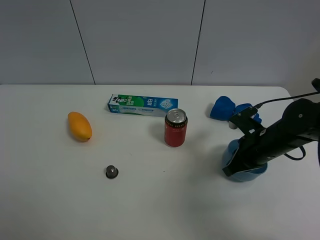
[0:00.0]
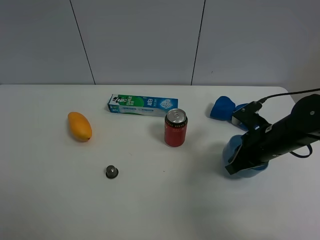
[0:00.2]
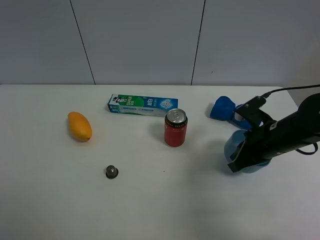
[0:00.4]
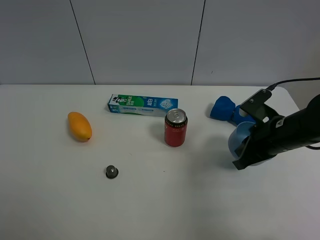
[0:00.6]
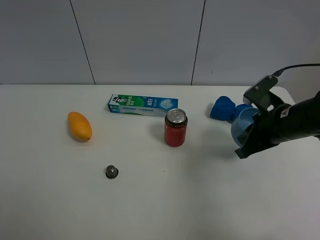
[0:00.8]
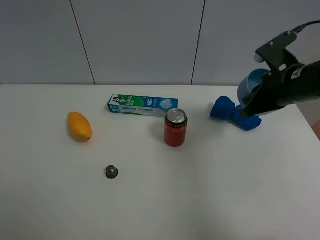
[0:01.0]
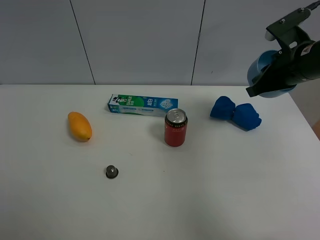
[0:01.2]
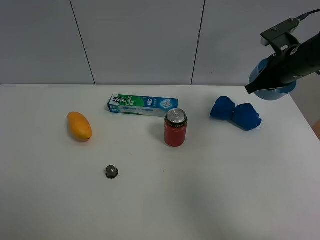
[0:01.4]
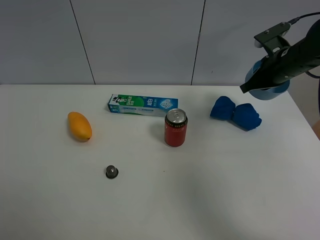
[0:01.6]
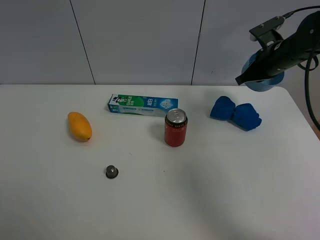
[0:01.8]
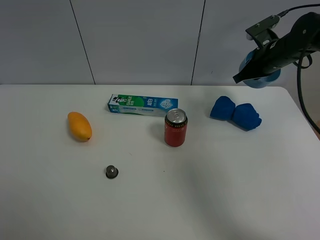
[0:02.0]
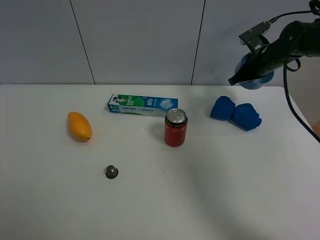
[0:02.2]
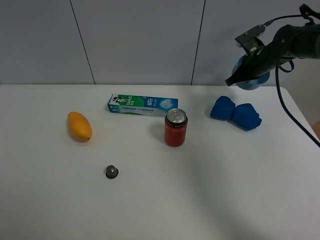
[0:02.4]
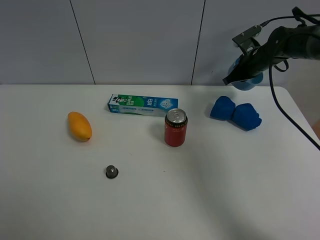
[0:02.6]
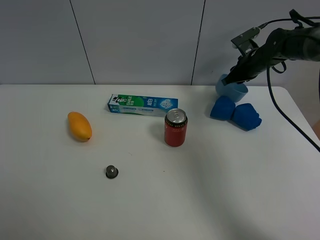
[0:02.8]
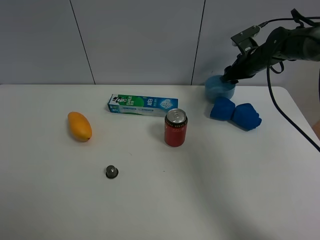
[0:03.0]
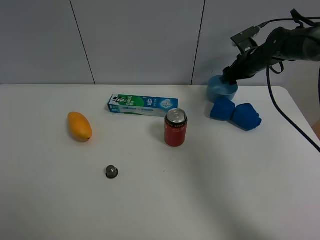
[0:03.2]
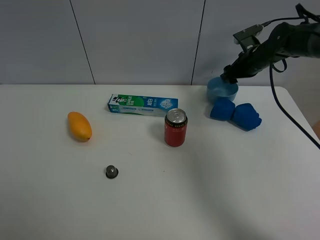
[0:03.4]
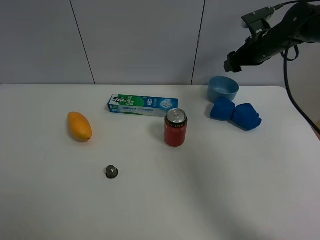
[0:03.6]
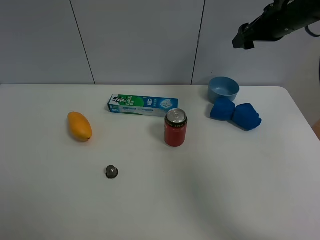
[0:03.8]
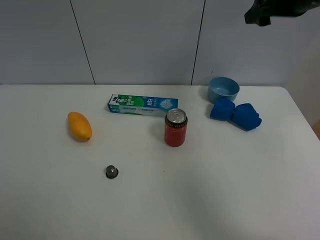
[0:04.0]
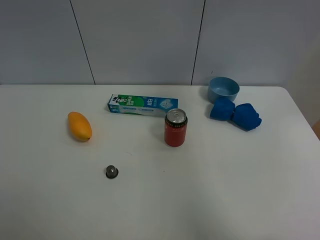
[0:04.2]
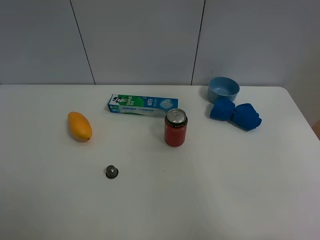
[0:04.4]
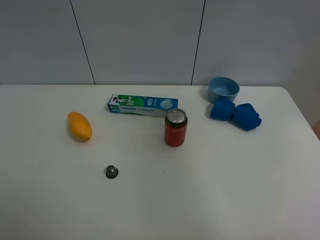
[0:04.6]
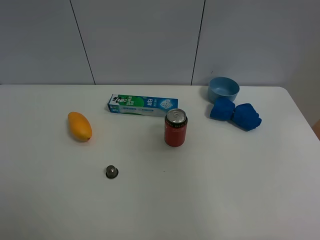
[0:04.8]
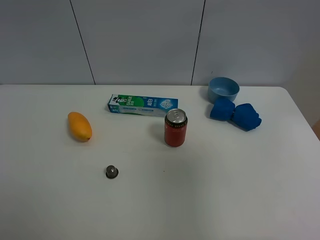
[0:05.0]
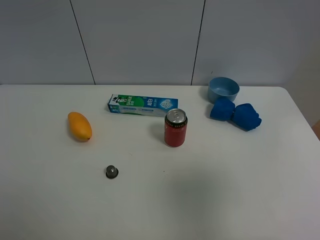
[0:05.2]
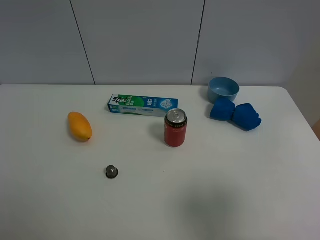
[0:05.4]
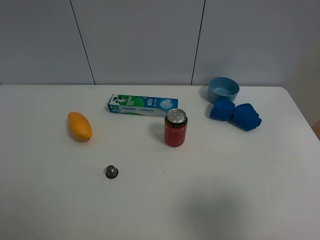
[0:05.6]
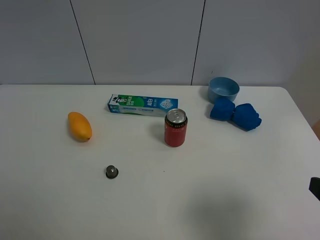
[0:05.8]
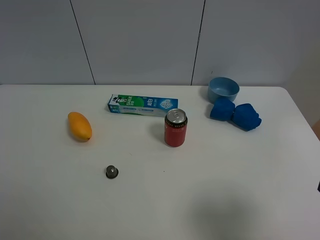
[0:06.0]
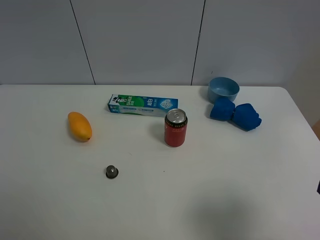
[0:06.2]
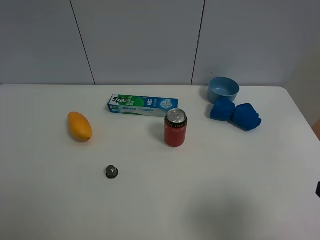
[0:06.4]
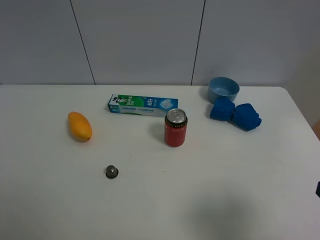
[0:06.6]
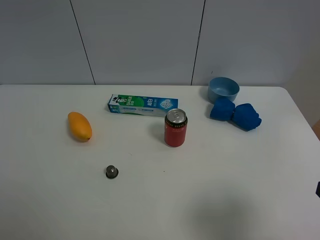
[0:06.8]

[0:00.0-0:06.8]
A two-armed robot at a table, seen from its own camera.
Task of the whole recording: the gripper move the object.
Step, 0:00.0 to 0:02.8: Place the blue bowl on the table with the right gripper.
0:00.0 to 0:01.4: The right gripper is displaced upward and forward by about 15 cm.
0:01.4 to 0:02.8: The right gripper is displaced forward and downward by about 15 cm, and opens its fingers.
0:02.8 to 0:04.0: The right gripper travels upward and backward by about 20 cm, and opens its fingers.
0:04.0 to 0:05.4: The right gripper travels backward by some 35 cm.

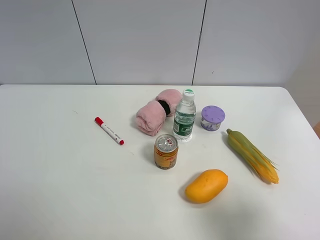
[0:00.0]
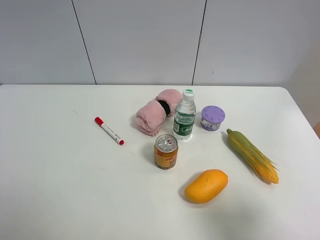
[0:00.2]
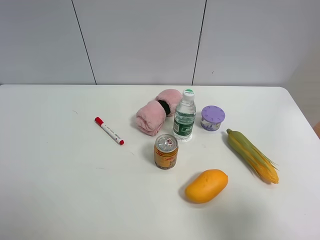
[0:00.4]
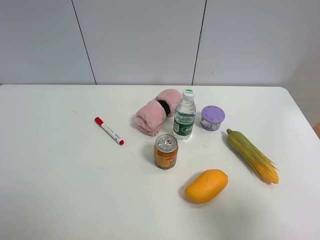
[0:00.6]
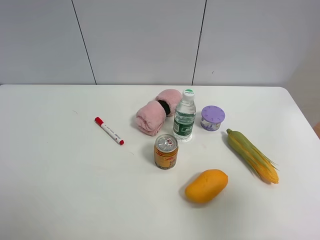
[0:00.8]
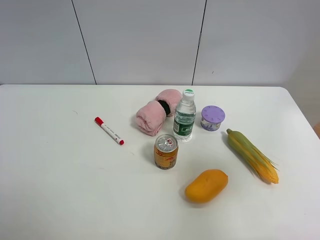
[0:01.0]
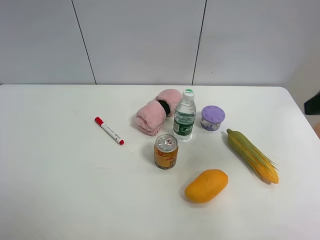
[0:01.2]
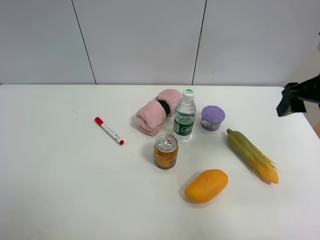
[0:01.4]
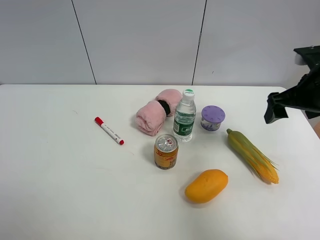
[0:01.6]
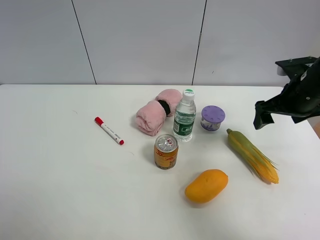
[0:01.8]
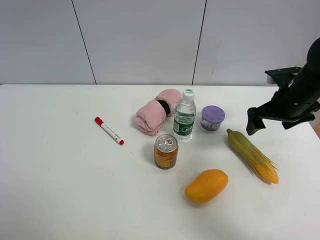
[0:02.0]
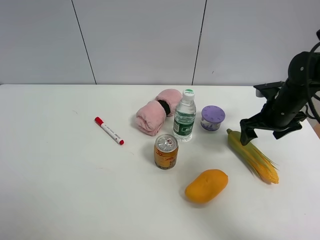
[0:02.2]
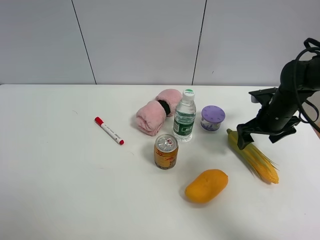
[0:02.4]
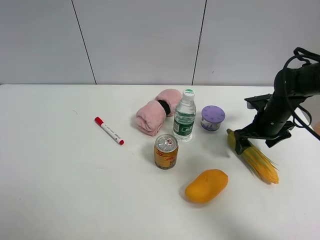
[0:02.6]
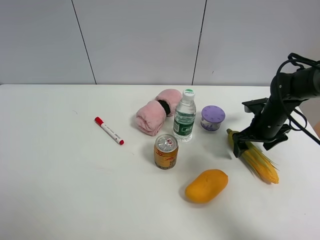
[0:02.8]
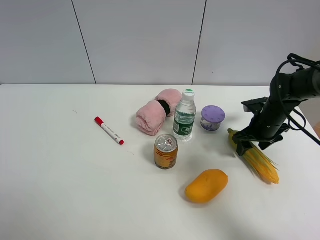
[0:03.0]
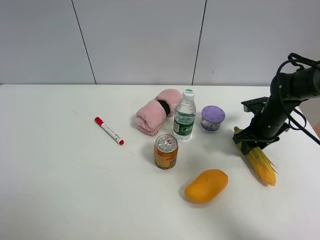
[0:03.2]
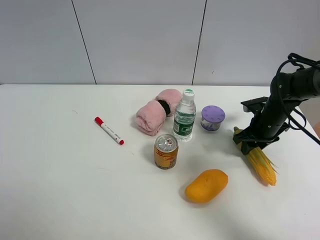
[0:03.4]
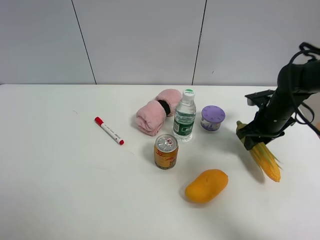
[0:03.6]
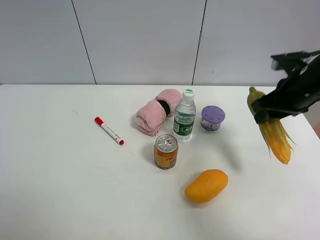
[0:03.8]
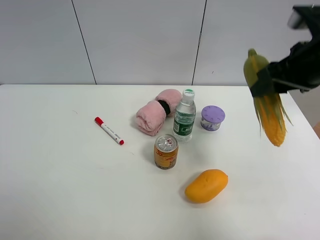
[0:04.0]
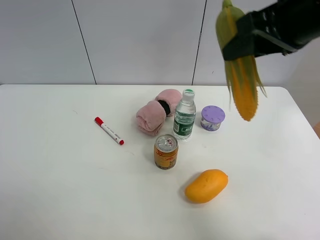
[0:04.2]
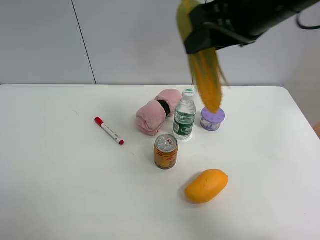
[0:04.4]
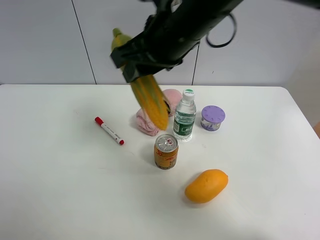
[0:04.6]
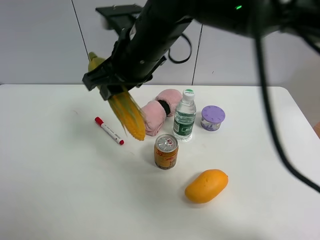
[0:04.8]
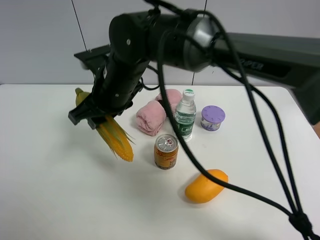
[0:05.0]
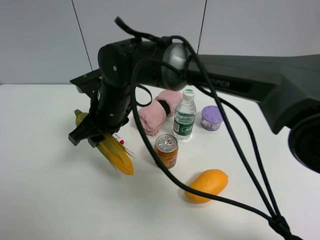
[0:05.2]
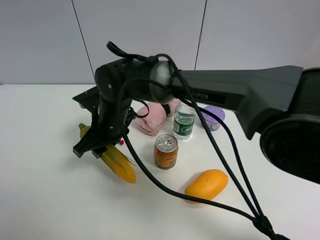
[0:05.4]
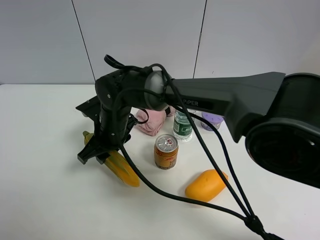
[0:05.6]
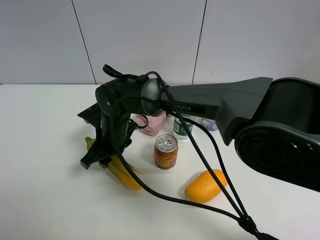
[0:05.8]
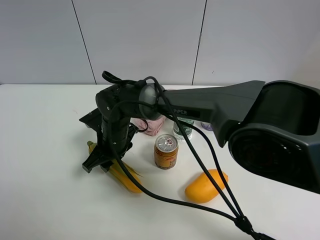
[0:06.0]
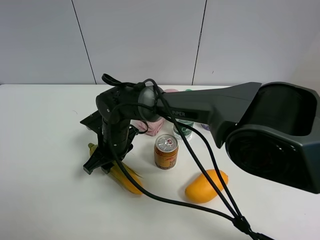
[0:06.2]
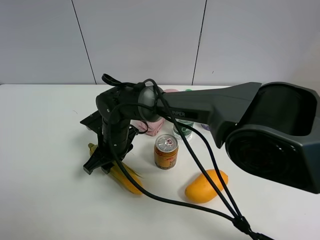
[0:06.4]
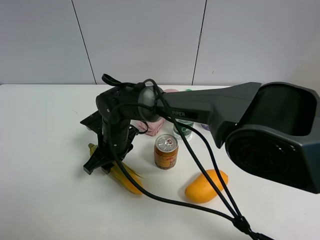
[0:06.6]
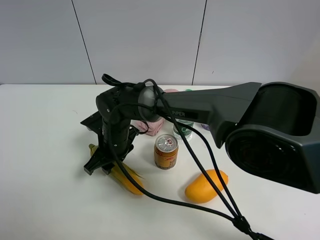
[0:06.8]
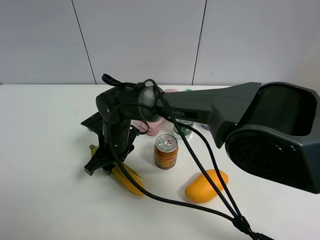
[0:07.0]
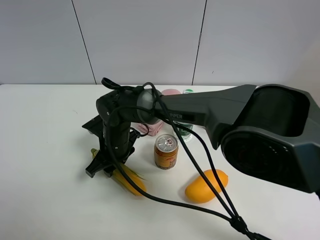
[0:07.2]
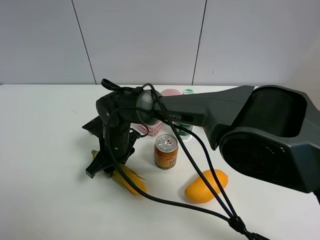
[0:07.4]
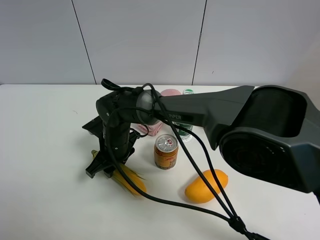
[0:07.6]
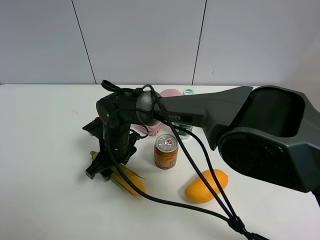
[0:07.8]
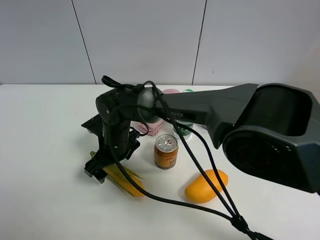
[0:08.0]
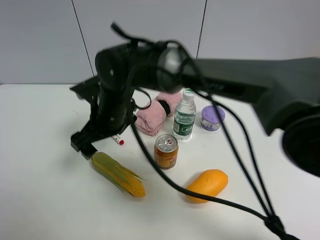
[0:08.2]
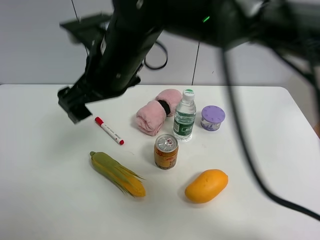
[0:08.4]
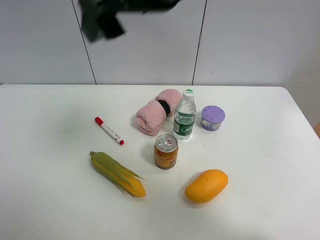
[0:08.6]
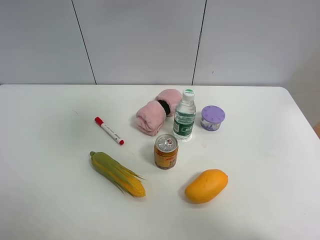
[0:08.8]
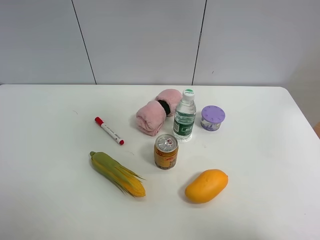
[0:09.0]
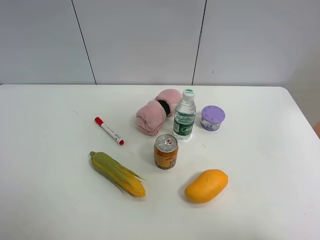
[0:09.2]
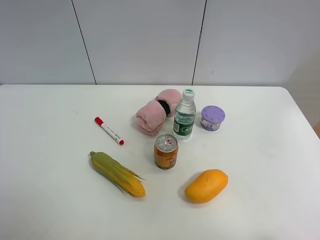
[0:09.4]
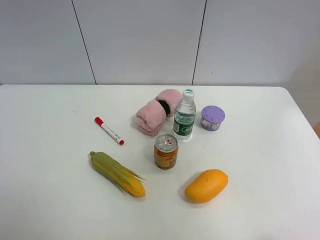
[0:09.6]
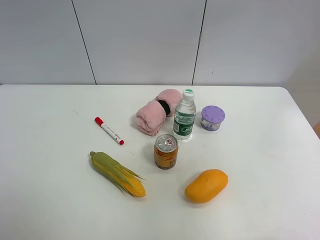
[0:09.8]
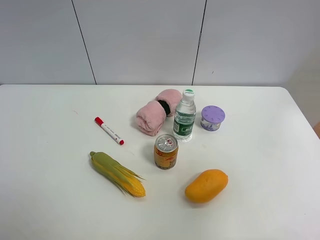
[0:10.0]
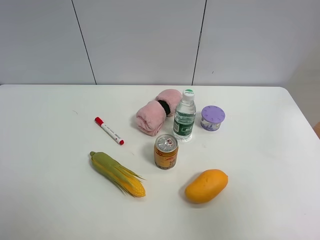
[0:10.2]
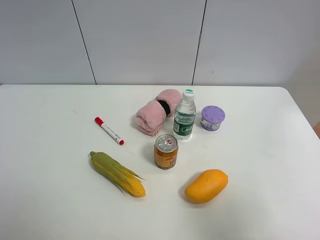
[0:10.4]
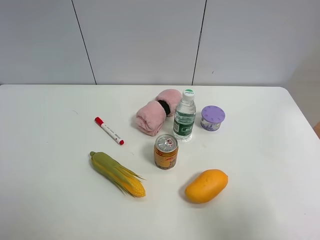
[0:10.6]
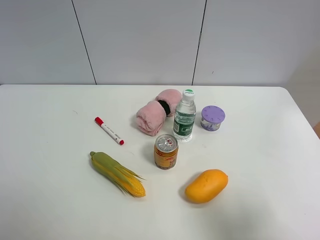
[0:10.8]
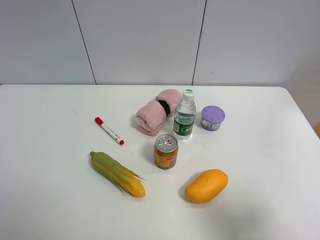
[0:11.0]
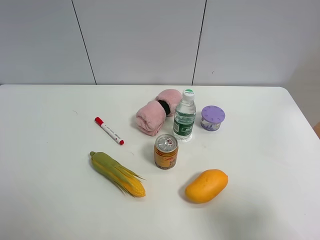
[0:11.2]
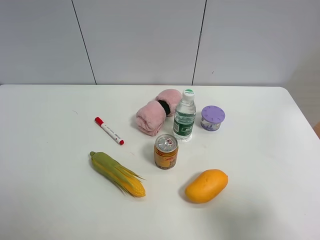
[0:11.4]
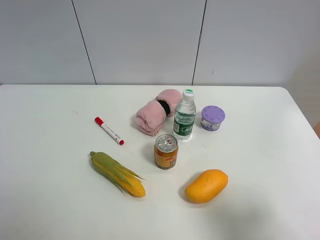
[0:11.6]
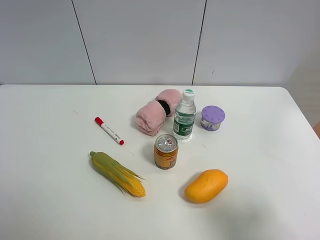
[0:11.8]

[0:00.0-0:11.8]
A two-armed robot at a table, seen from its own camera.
Task of the whole recording: the gripper move the object.
Step, 0:00.0 to 0:03.2: Grasp the corn with the right gripper.
Step, 0:03.4 to 0:08.0: Place the corn on the table with the right gripper.
0:00.0 to 0:01.4: The right gripper heads forward, covering roughly 25 cm.
0:01.4 to 0:03.0: The right gripper shifts approximately 20 cm downward and forward, and closes up.
0:03.0 to 0:04.4: The right gripper travels upward and to the left by about 35 cm.
0:04.4 to 0:06.0: The right gripper moves downward and to the left, roughly 35 cm.
0:06.0 to 0:07.4: The grippers stay close to where they were, moving slightly.
0:07.4 to 0:08.8: The right gripper is displaced upward and to the right by about 50 cm, and opens its fingers.
0:08.8 to 0:10.4: The right gripper travels to the right, backward and downward by approximately 35 cm.
0:10.4 to 0:11.8: The right gripper travels downward by some 10 cm.
